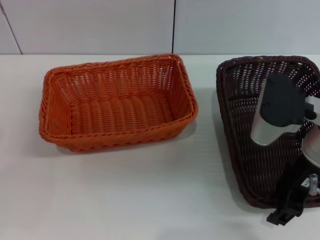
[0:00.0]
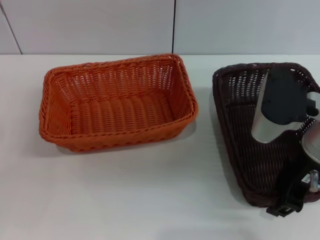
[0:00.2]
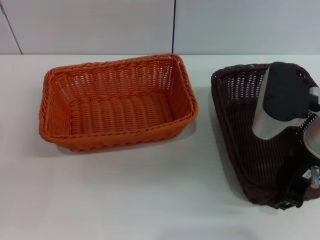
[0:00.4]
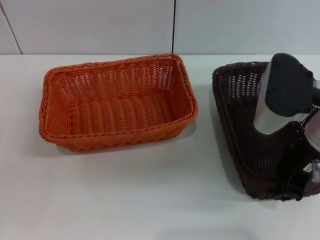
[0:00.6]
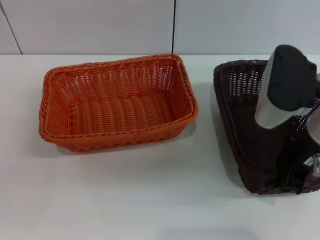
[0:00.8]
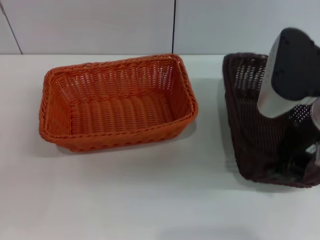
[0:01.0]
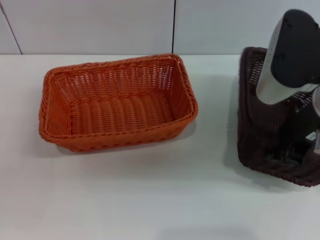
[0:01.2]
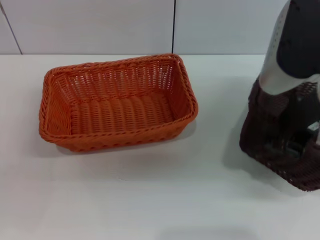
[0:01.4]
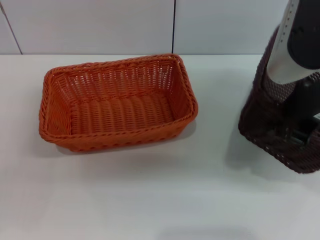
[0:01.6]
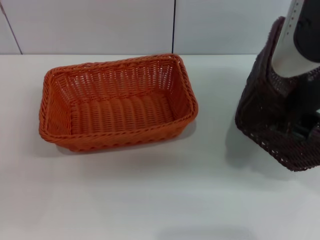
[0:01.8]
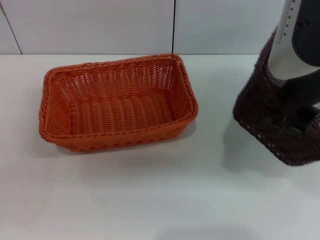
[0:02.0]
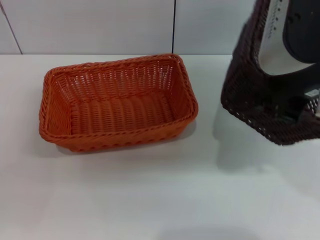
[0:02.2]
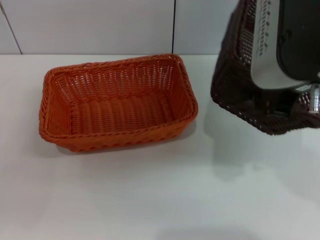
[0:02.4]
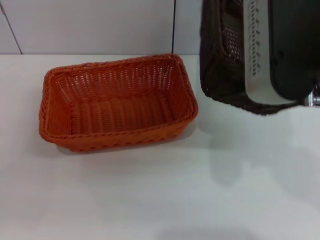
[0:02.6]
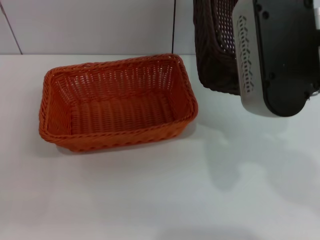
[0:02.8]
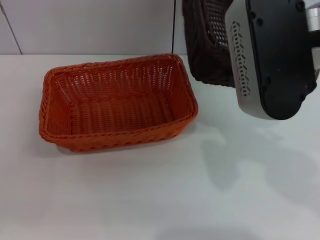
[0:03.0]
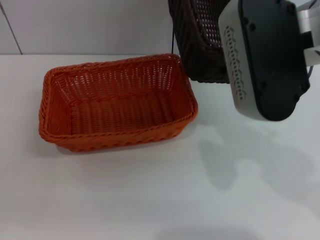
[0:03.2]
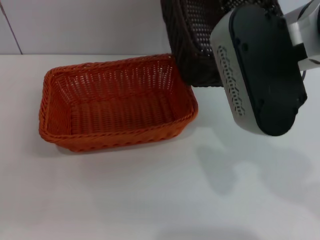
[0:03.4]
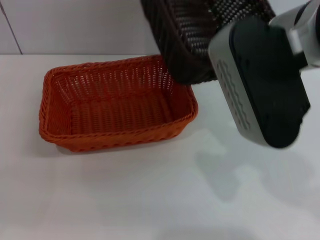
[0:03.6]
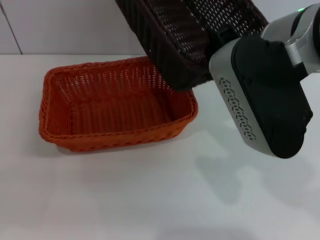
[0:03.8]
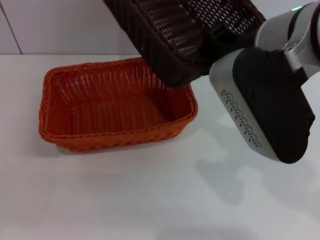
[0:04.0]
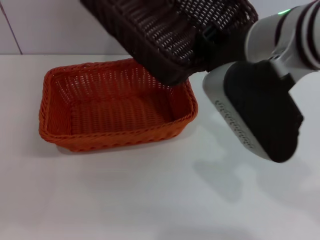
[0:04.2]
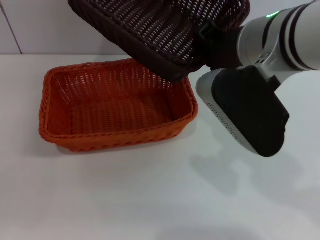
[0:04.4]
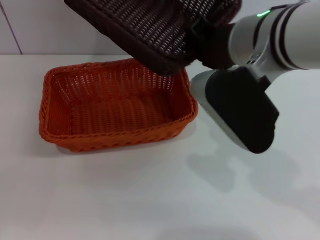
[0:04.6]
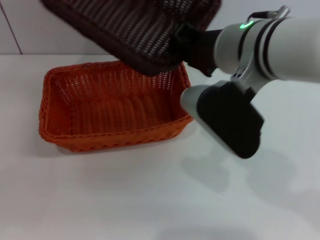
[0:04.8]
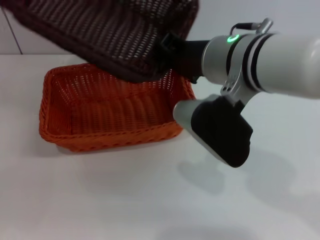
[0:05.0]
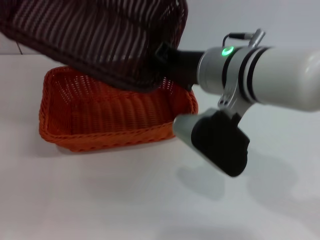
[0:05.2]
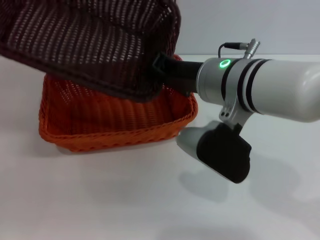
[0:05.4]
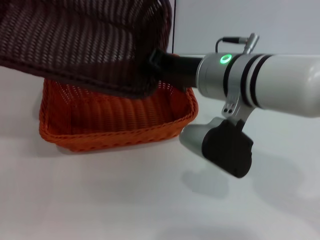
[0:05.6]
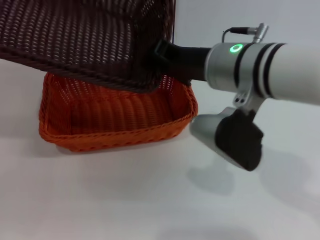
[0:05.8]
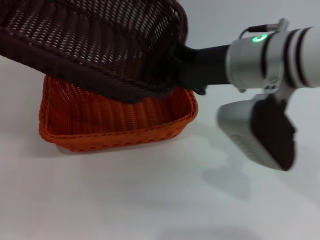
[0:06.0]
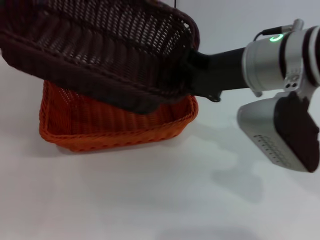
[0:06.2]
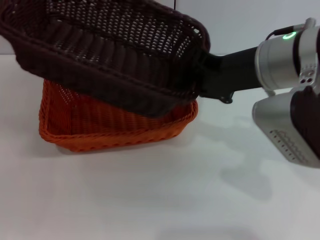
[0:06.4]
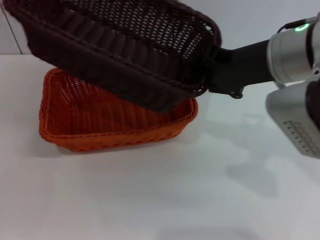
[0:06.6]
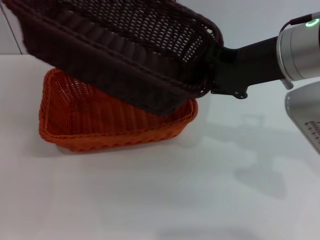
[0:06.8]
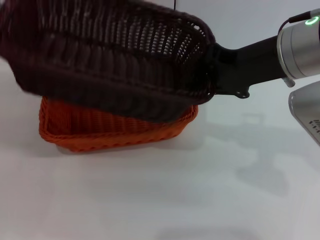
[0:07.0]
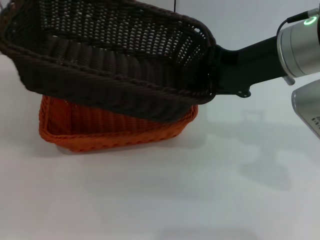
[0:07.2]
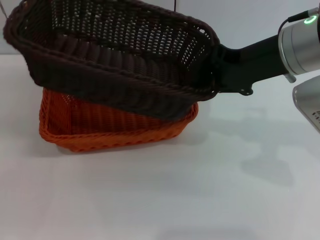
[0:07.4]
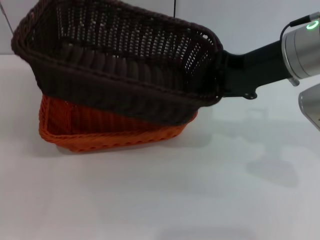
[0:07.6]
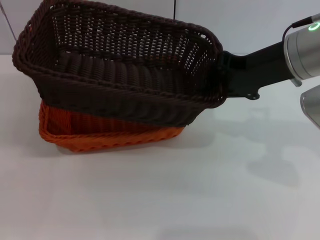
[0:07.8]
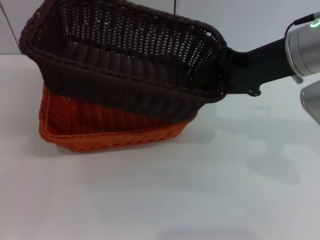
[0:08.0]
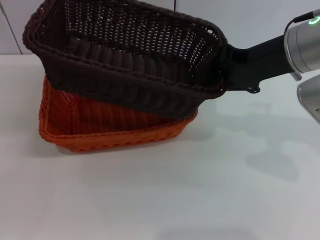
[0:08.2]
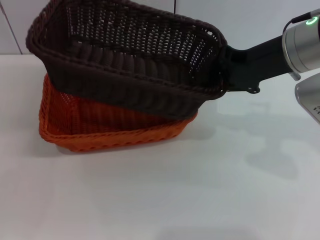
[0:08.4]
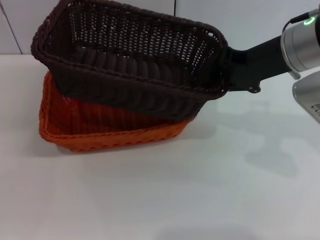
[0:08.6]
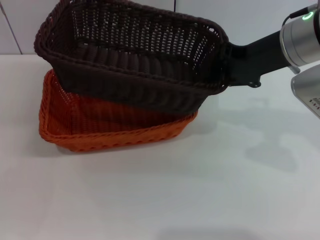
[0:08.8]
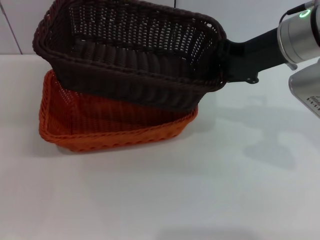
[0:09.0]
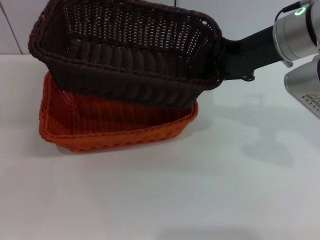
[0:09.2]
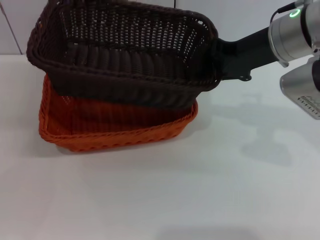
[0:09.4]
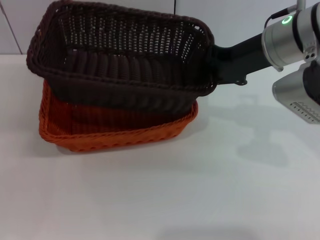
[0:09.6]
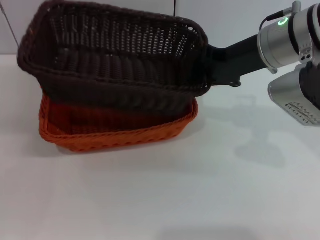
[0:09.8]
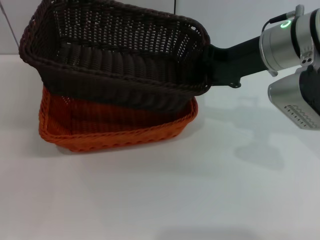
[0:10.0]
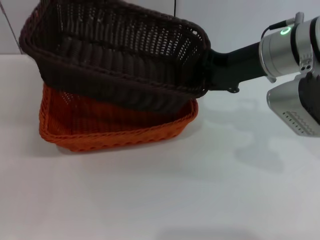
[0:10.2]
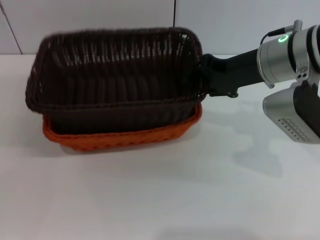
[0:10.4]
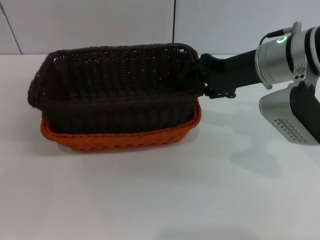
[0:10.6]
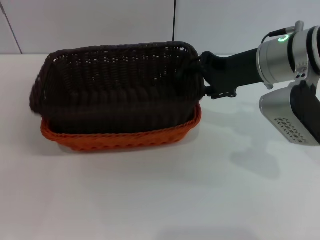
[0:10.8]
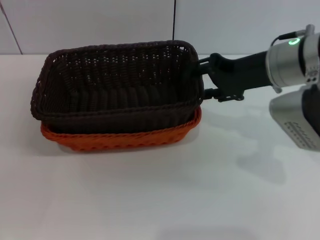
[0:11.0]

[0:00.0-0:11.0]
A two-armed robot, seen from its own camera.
Step, 0:01.0 to 0:10.8: Place the dark basket on the light basket with the right gripper.
0:00.0 to 0:01.6: The right gripper heads upward, covering about 10 cm, and closes up.
0:01.6 to 0:03.2: The right gripper shifts roughly 5 cm to the left.
0:03.2 to 0:04.8: The right gripper goes about 5 cm downward.
0:06.2 to 0:07.8: The right gripper moves to the right, roughly 5 cm.
0:07.8 to 0:09.4: There are only small adjustments of the grippers.
0:09.4 to 0:11.0: The right gripper opens.

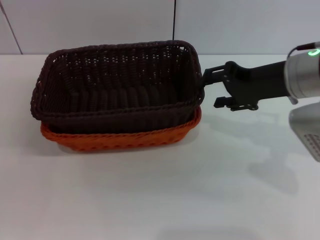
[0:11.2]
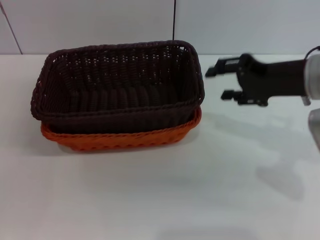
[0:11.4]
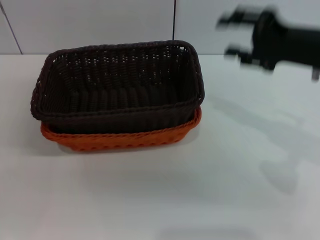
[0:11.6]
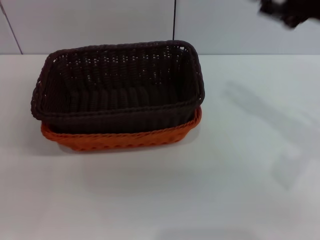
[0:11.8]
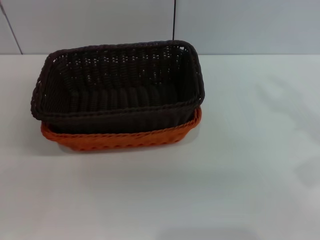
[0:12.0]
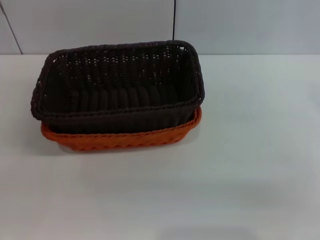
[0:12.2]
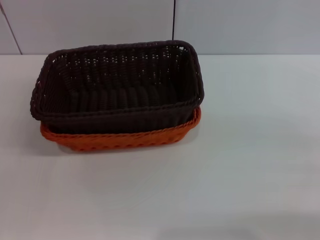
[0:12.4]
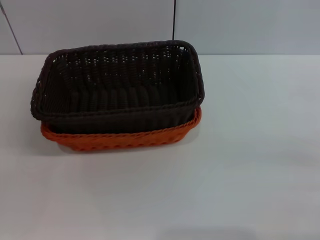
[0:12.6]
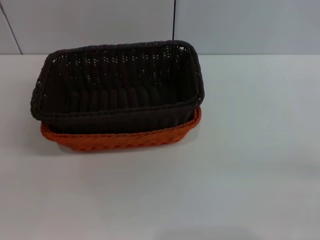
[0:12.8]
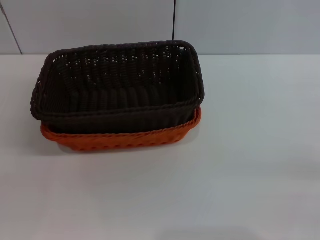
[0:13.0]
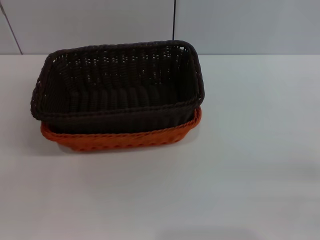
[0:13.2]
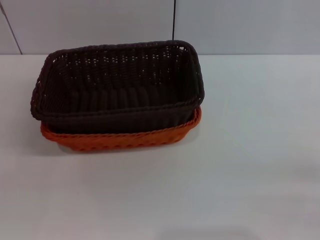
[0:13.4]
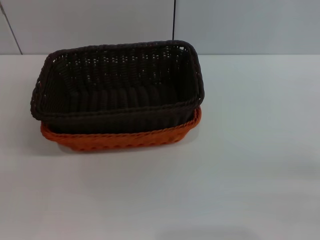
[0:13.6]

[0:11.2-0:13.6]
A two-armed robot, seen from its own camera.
0:11.2 to 0:12.4: The right gripper goes approximately 20 cm to the right and backward.
